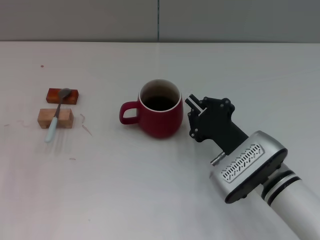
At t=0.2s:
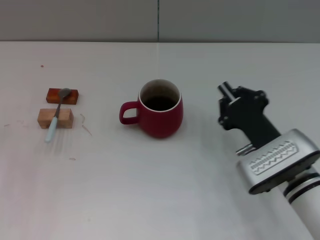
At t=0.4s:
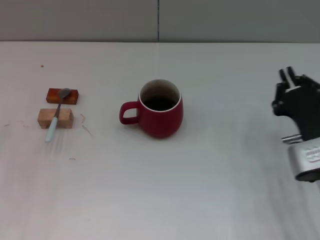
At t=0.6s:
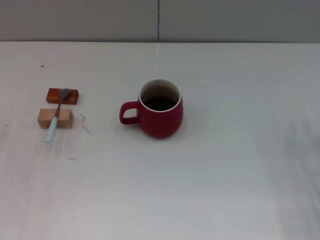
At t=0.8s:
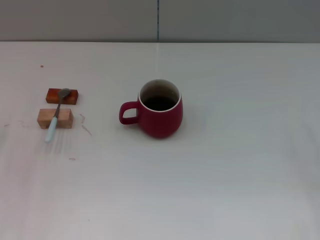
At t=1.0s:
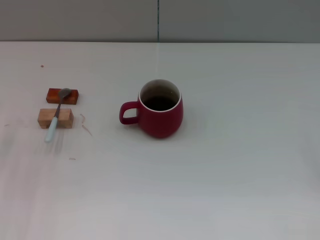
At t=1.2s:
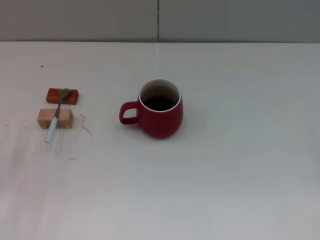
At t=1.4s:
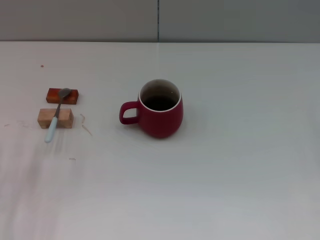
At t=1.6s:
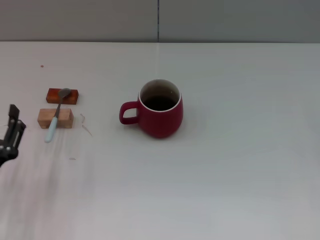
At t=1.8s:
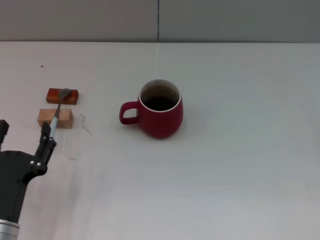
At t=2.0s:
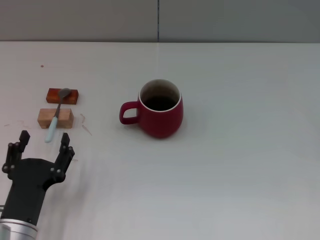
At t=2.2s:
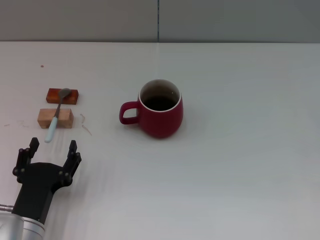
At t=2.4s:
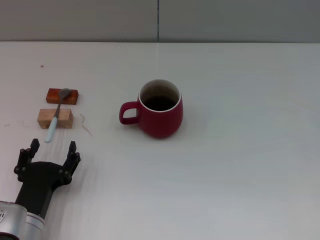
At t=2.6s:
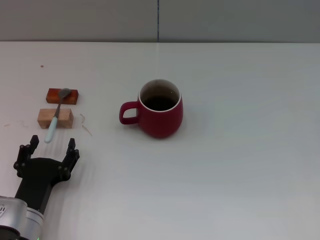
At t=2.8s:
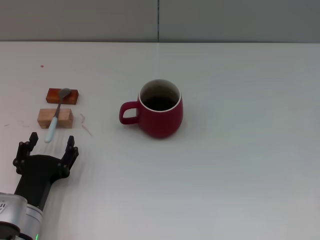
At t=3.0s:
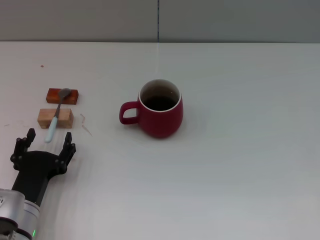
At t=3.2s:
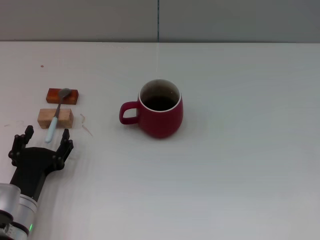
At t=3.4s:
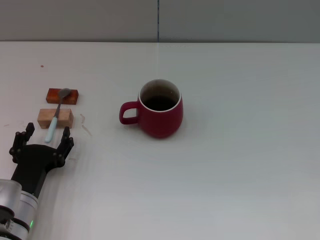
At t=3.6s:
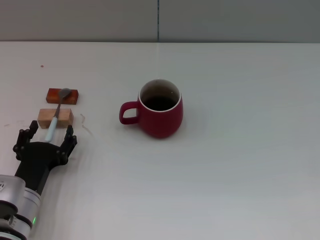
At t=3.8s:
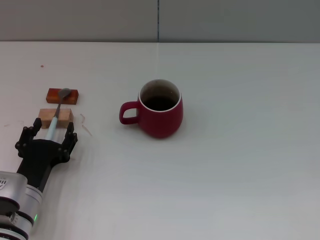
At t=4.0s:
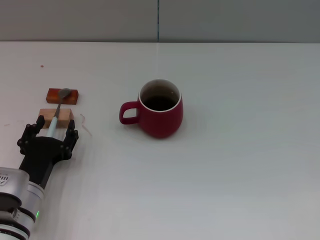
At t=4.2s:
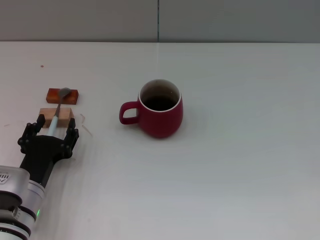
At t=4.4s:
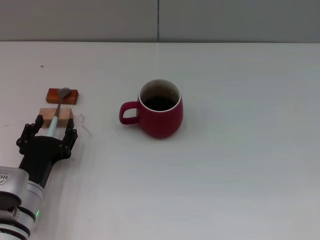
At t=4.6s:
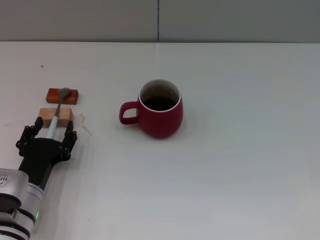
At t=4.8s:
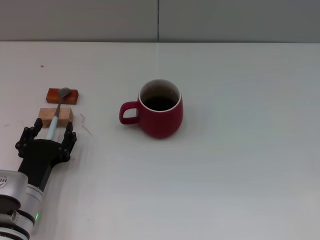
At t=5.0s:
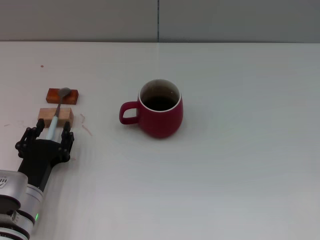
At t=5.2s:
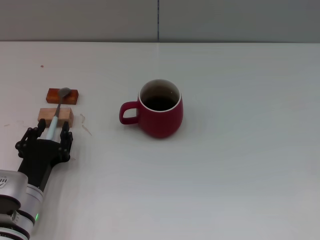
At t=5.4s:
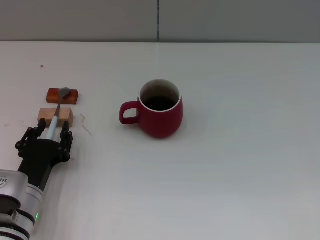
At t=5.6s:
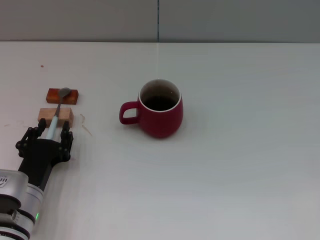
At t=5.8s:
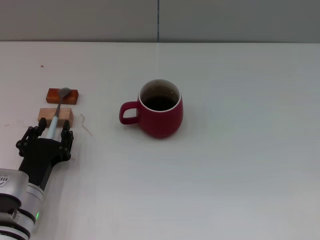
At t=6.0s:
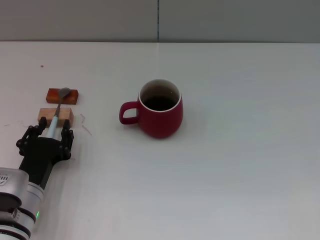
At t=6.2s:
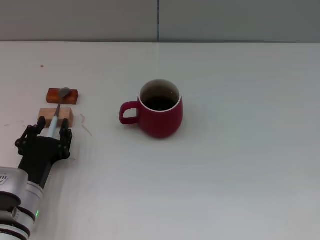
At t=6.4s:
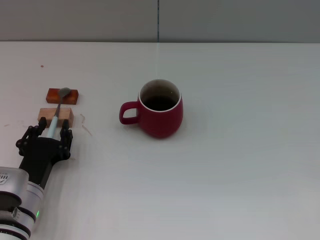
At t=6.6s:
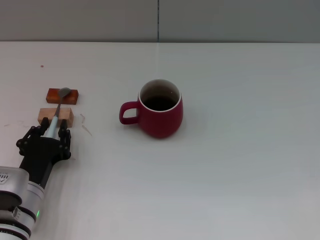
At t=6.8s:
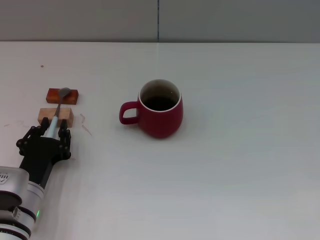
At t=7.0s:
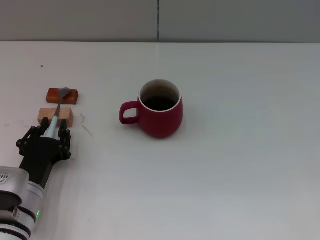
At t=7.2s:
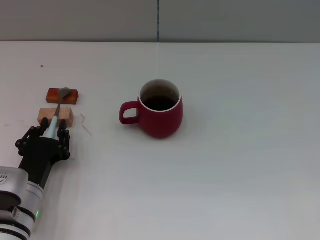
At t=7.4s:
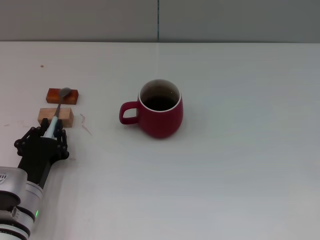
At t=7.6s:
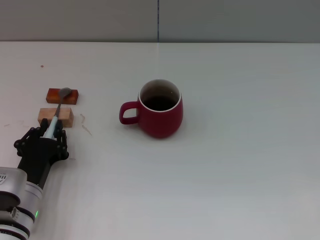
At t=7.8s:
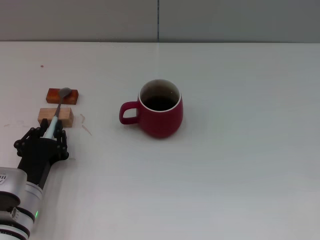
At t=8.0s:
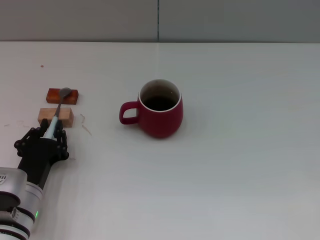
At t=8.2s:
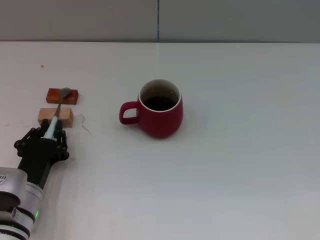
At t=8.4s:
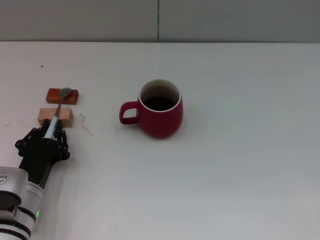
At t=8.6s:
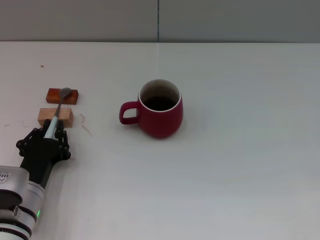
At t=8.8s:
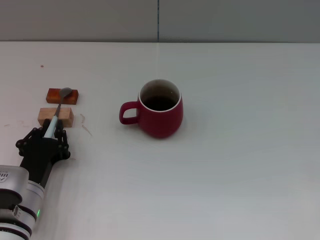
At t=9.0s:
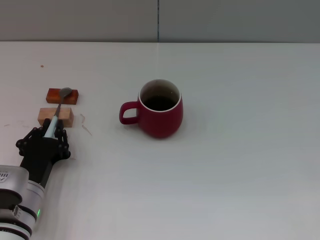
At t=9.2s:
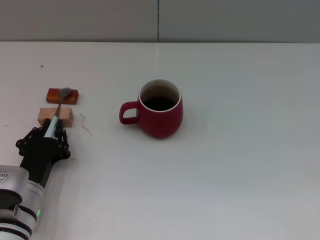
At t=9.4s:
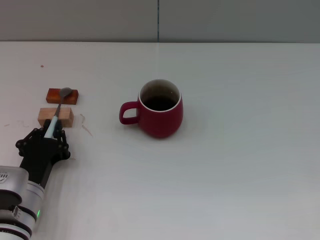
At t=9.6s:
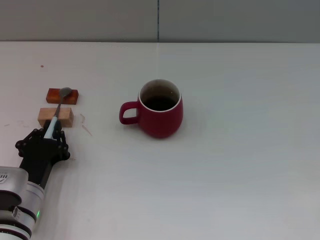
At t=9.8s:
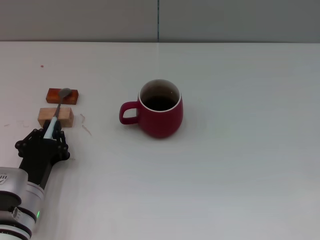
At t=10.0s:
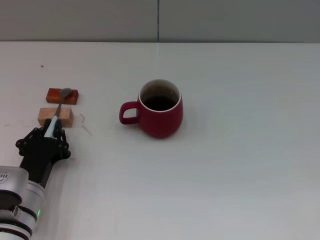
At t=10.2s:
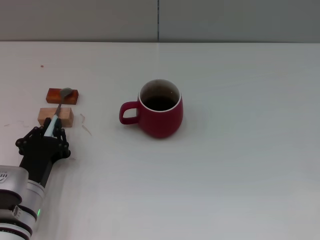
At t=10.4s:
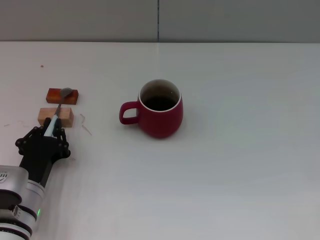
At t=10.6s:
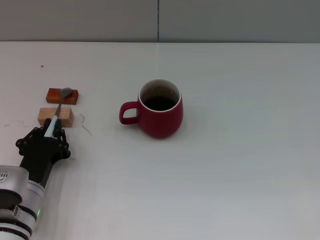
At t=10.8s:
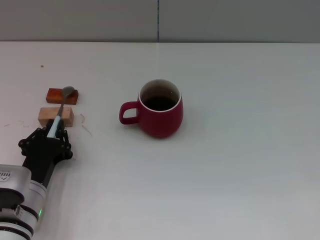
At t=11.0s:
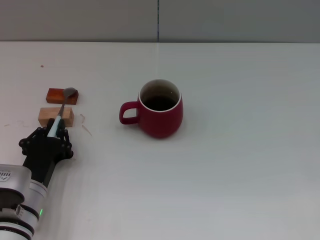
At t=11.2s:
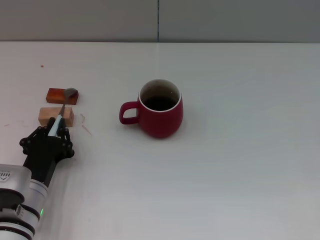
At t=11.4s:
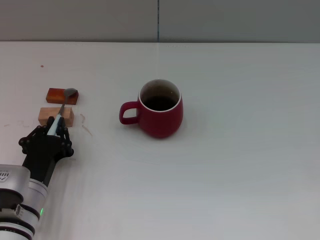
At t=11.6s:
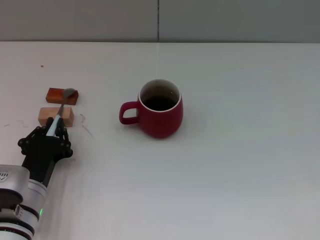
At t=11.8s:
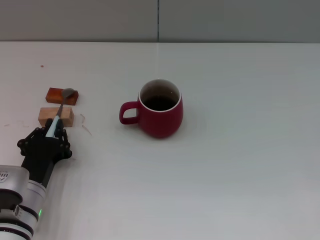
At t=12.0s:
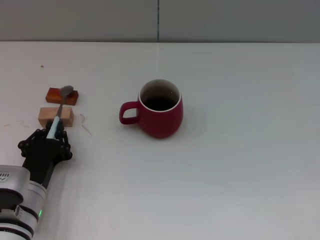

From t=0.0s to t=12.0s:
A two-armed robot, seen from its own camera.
Task of the whole recording: Move the red cup to the center, lift the blue spoon, stir it three times in the cup, and put the spoon into the cup.
From t=0.0s to t=1.6s: The right gripper goes some 30 cm to the right, and opens up, while the left gripper goes some 15 cm backward and to the right.
From t=1.6s to t=3.0s: The left gripper shifts by roughly 5 cm.
From t=3.0s to t=4.4s: There are only small adjustments of the grippers.
From t=4.4s to t=12.0s: Both grippers stay put.

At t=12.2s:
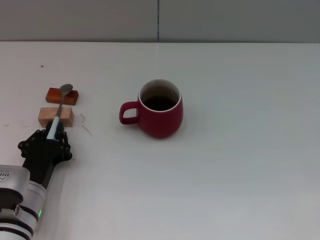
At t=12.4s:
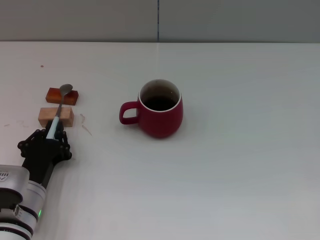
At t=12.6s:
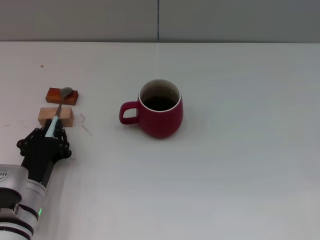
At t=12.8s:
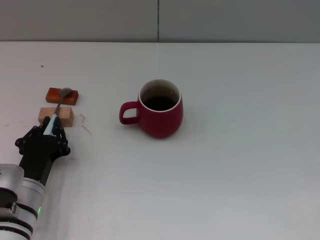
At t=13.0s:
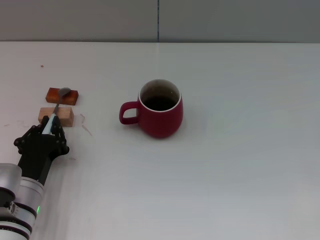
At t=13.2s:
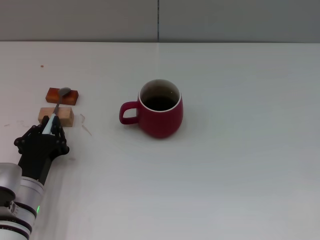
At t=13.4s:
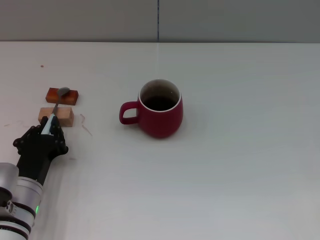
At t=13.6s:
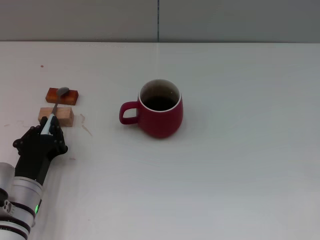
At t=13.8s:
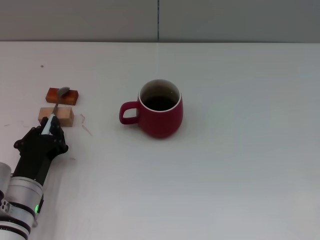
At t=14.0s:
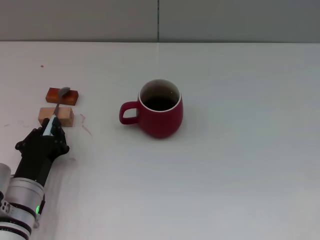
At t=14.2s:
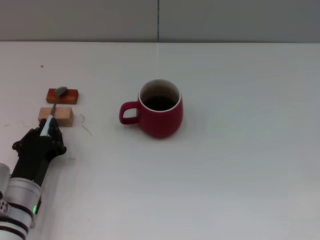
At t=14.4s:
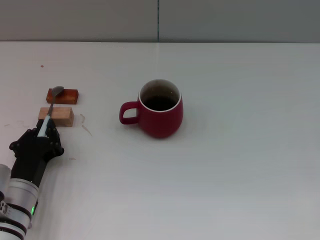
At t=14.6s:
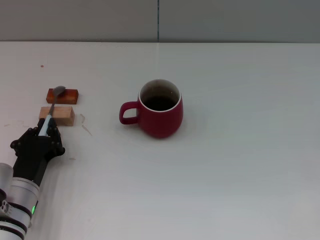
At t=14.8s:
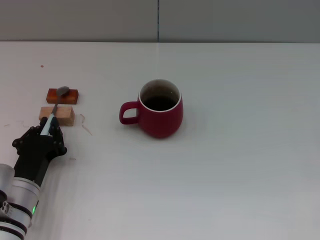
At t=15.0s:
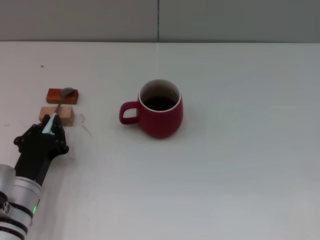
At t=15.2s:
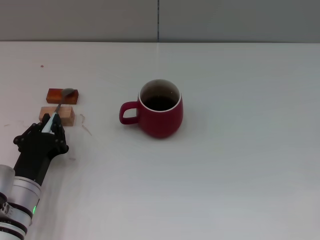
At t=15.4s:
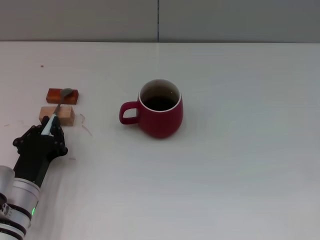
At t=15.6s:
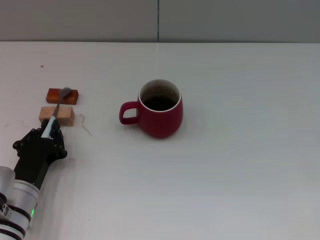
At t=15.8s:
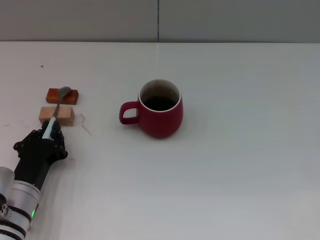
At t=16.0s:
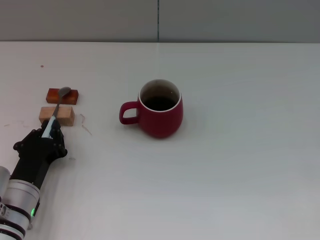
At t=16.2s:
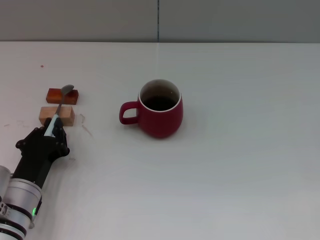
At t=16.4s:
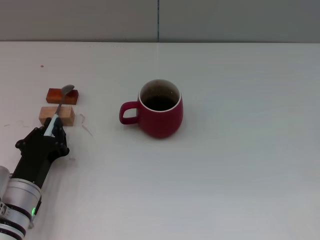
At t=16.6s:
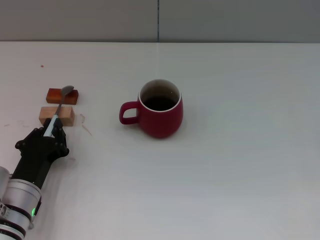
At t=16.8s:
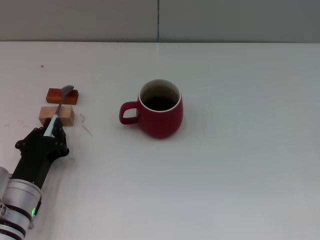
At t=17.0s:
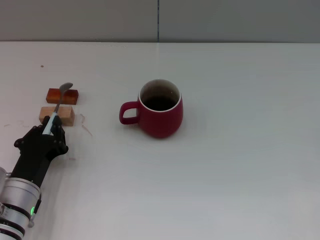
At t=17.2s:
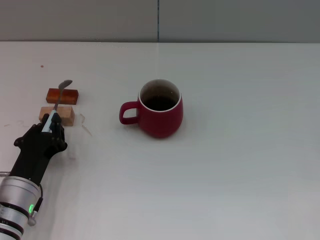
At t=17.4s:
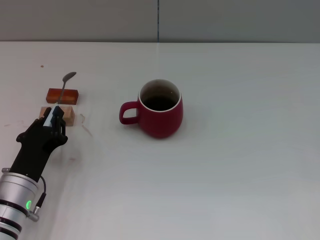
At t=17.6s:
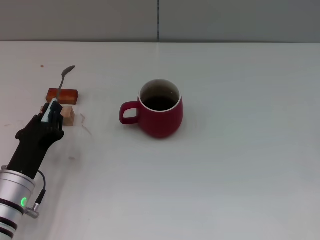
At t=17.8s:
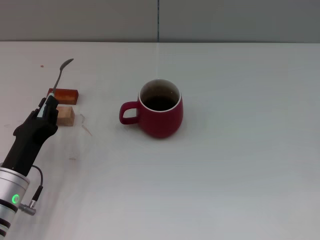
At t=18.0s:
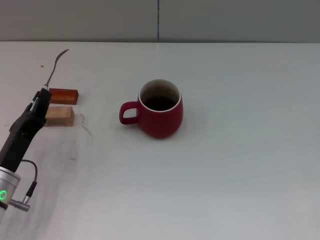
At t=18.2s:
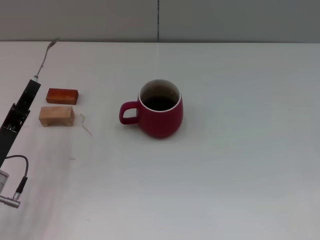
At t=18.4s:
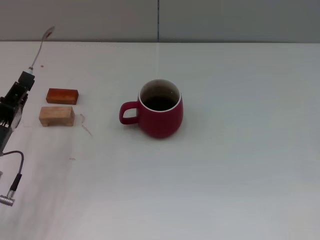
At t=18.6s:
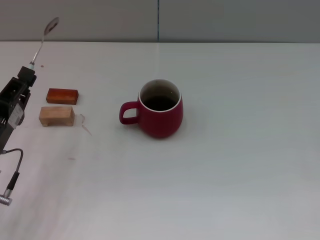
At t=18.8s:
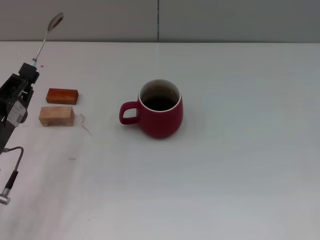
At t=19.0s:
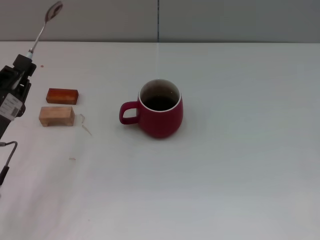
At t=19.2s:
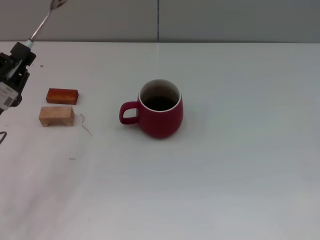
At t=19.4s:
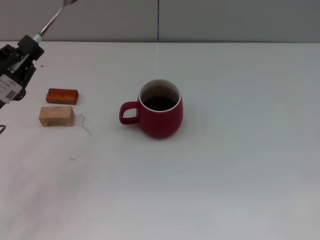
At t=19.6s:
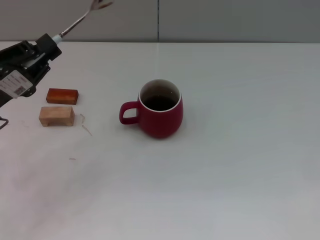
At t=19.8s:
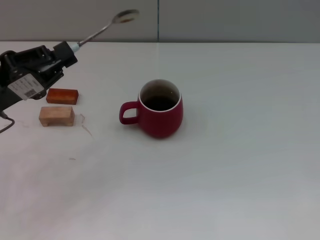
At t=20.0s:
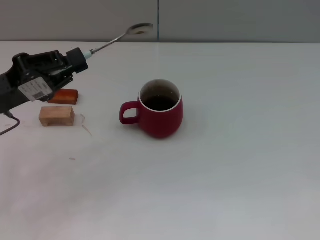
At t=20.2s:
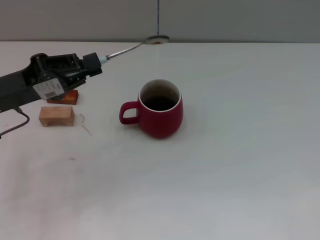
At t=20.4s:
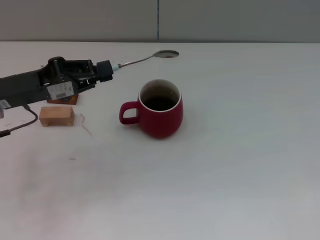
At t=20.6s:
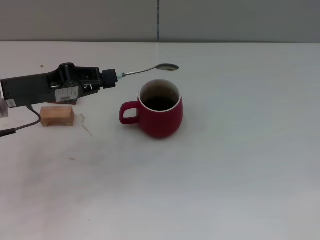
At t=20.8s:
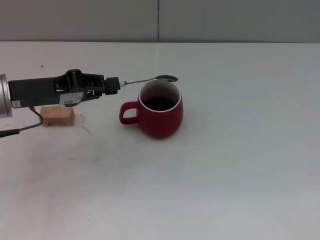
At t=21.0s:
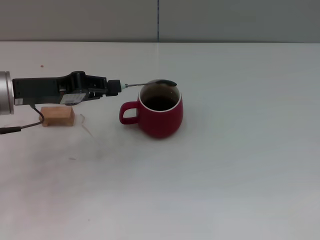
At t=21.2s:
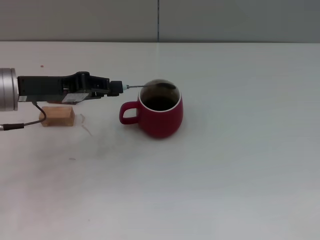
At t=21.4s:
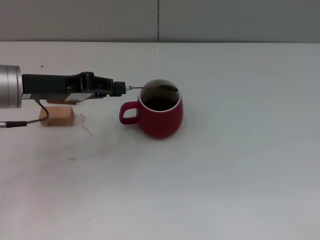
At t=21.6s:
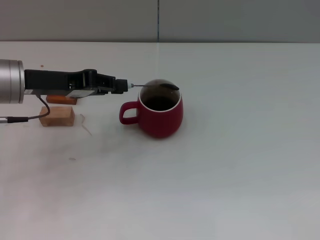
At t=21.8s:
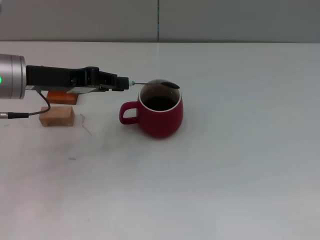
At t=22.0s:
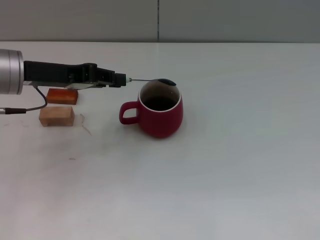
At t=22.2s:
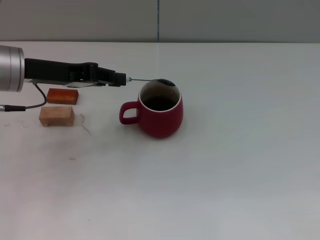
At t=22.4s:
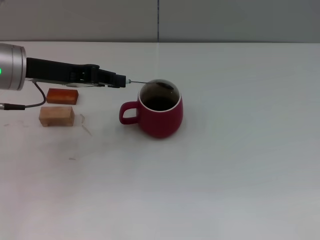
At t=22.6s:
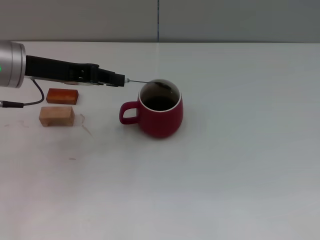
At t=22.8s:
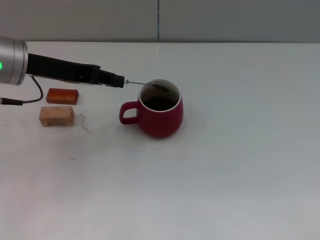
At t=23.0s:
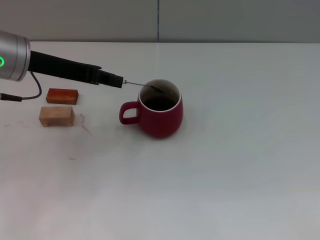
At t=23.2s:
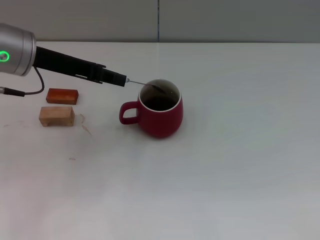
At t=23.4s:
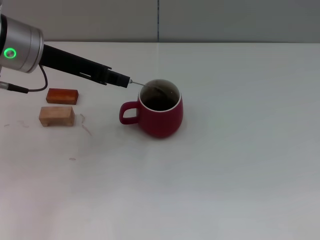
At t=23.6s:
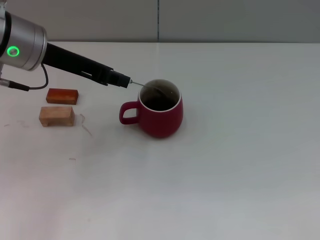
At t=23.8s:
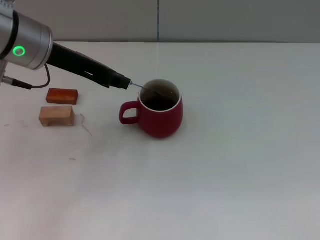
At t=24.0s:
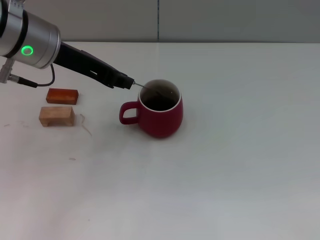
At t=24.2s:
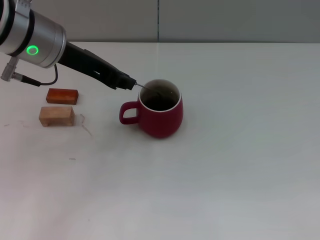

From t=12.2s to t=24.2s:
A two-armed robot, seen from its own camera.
Task of the whole recording: Move the red cup to the center, lift the blue spoon, stir it three times in the cup, and put the spoon into the cup.
Step, from t=12.2s to t=17.8s: Pick up the spoon with the left gripper.
From t=12.2s to t=16.6s: The grippers stay close to where they were, moving slightly.
From t=16.6s to t=18.2s: The left gripper shifts by approximately 5 cm.
From t=18.2s to t=19.8s: The left gripper moves upward and forward, roughly 10 cm.
From t=19.8s to t=21.2s: The left gripper travels forward by approximately 5 cm.
From t=21.2s to t=22.6s: The grippers move only a little.
From t=22.6s to t=24.2s: The left gripper goes approximately 5 cm to the right.
